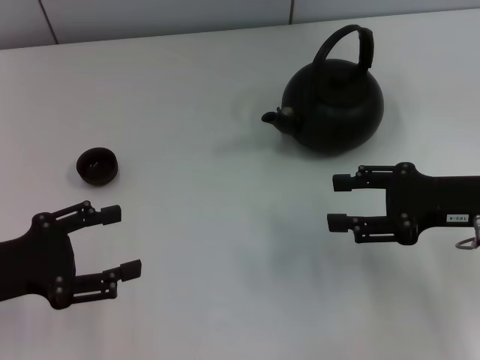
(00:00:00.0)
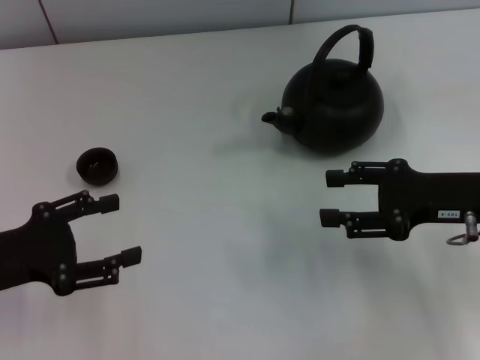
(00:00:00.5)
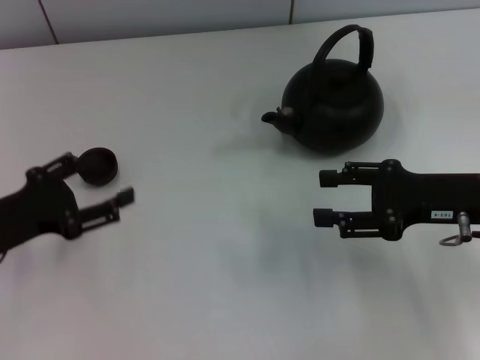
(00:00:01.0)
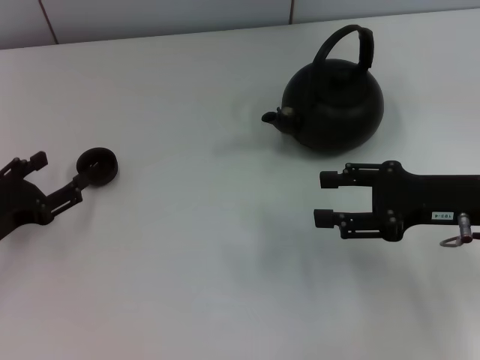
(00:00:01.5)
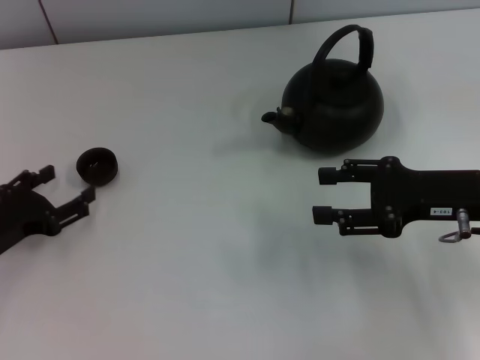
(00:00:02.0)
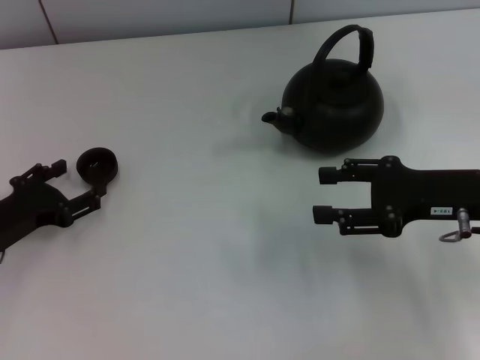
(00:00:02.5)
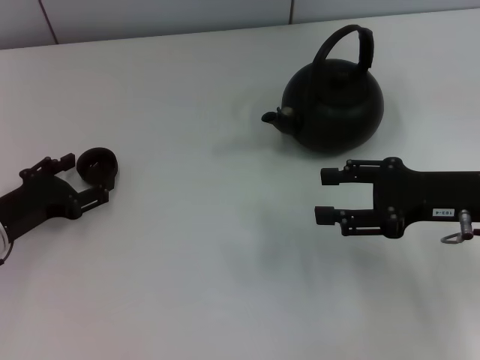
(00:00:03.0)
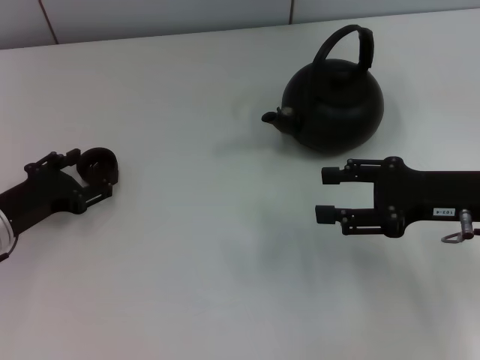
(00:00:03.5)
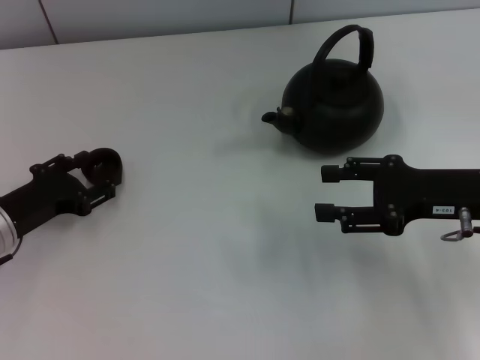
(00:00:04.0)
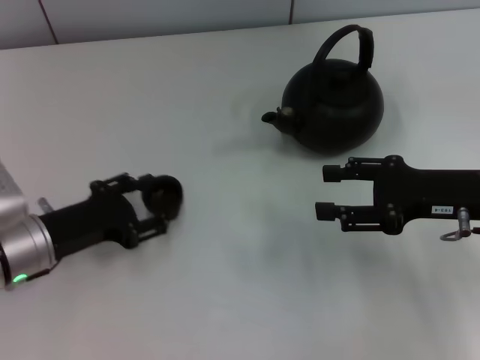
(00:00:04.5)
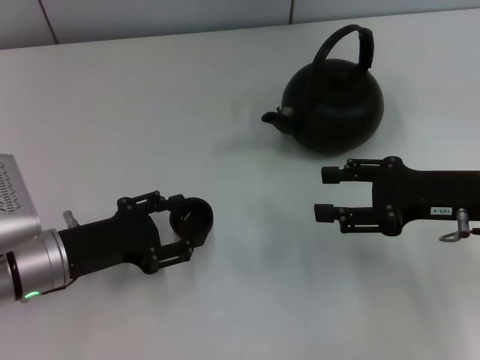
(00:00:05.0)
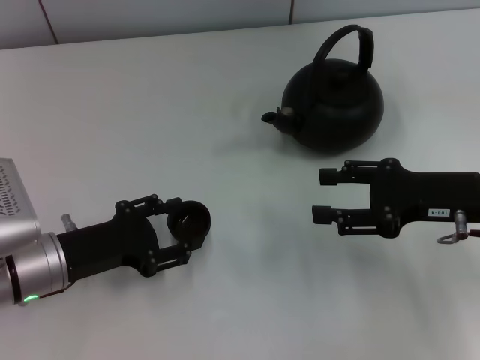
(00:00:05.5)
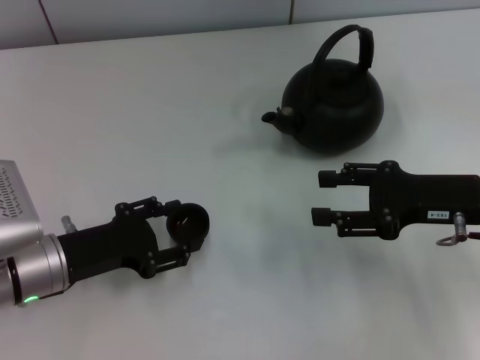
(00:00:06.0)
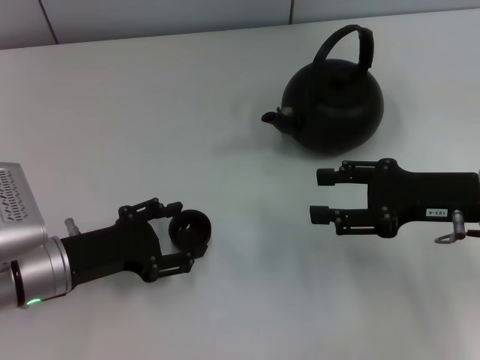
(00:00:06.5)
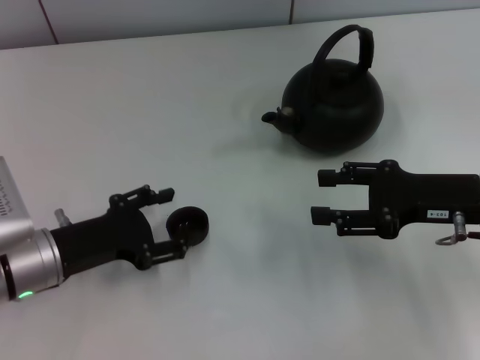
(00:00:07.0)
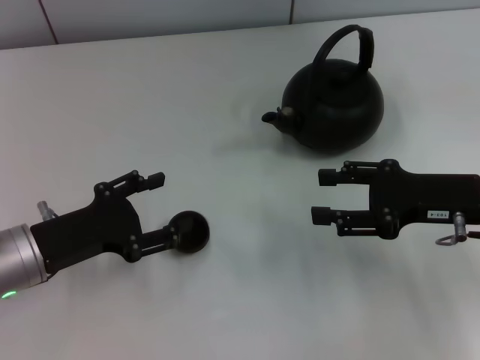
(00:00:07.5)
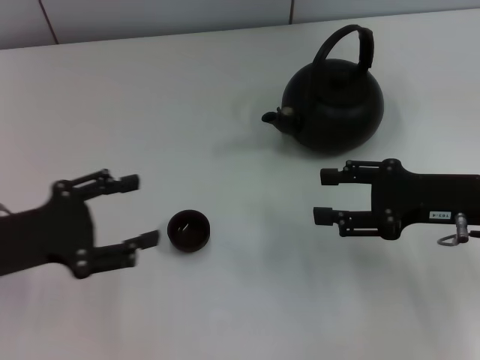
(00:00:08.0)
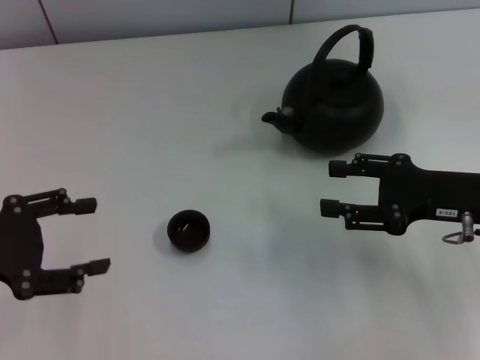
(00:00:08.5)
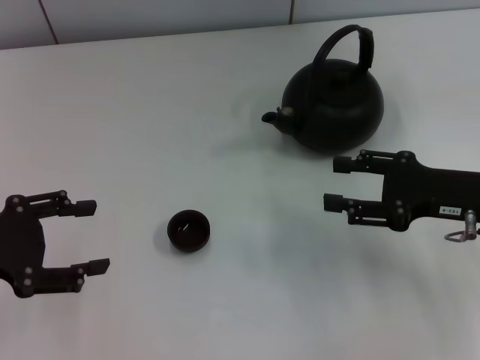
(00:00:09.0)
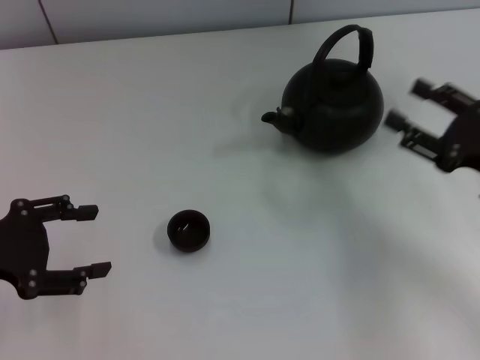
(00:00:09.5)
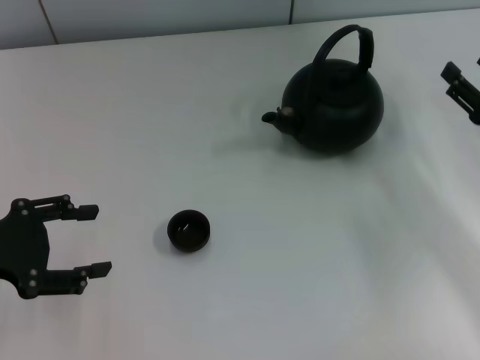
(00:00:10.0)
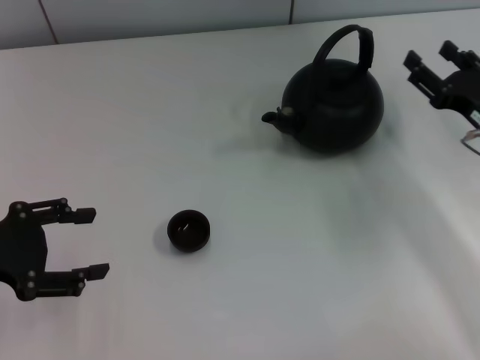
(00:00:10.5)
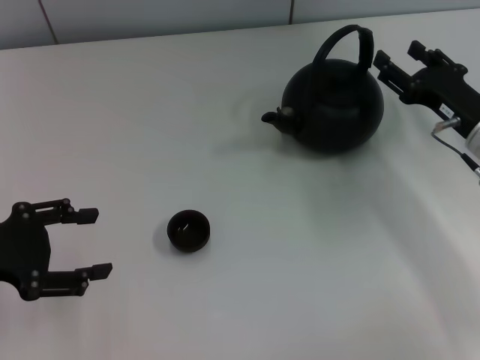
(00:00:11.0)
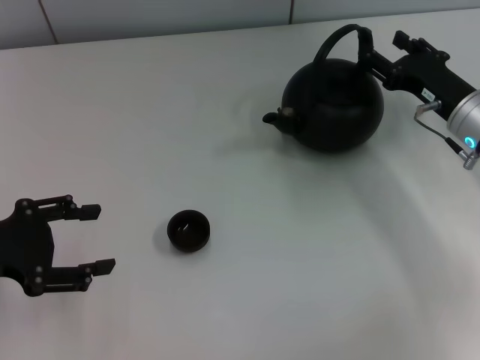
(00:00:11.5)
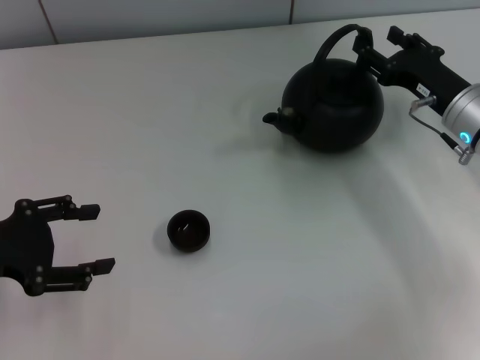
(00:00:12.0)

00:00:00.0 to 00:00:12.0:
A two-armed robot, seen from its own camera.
Task of the whole recording: Grasp the handle of the teapot with one hand and pour tea into the teacup.
Step, 00:00:00.0 to 00:00:04.0: Pick up the teacup with the left gripper.
Step, 00:00:04.5 to 00:00:07.5: Place the teacup in the center of view with the left gripper.
00:00:00.0 to 00:00:02.0: The left gripper travels downward by roughly 5 cm, and closes up.
00:00:02.0 to 00:00:04.0: The left gripper closes up.
00:00:04.0 to 00:00:06.0: The left gripper moves roughly 5 cm, and opens its fingers.
00:00:06.0 to 00:00:08.0: The left gripper is displaced upward and to the left by some 10 cm.
00:00:08.0 to 00:00:10.0: The right gripper heads to the right, covering roughly 5 cm.
00:00:10.0 to 00:00:12.0: The right gripper heads forward and to the left, covering about 10 cm.

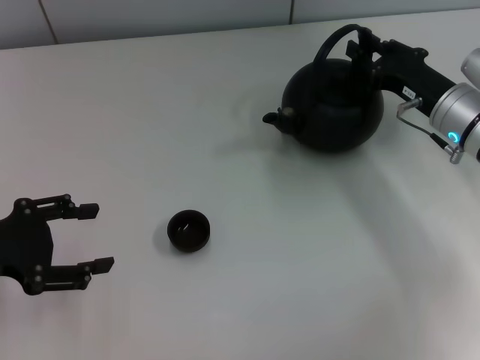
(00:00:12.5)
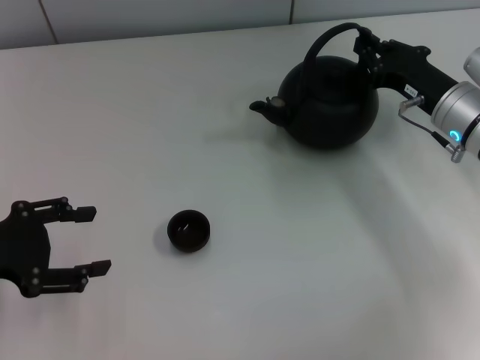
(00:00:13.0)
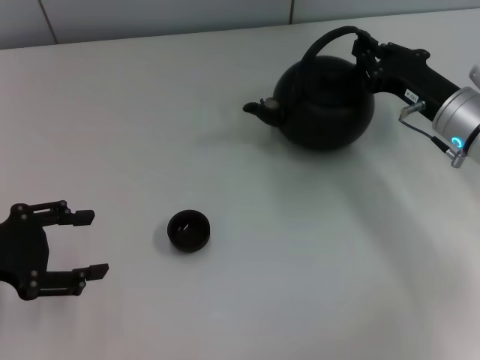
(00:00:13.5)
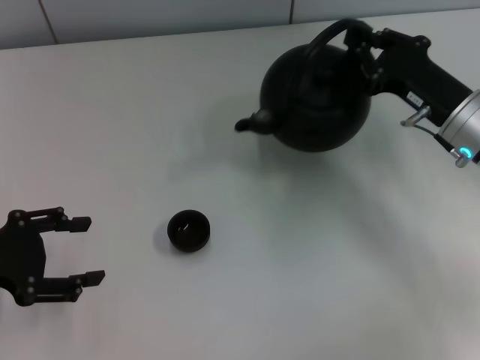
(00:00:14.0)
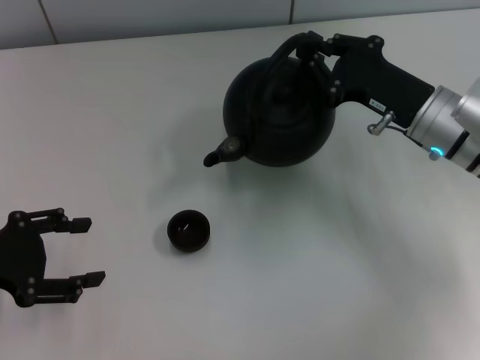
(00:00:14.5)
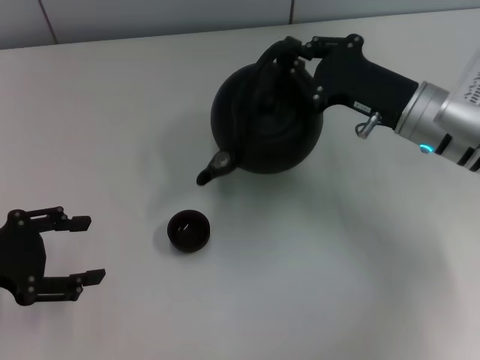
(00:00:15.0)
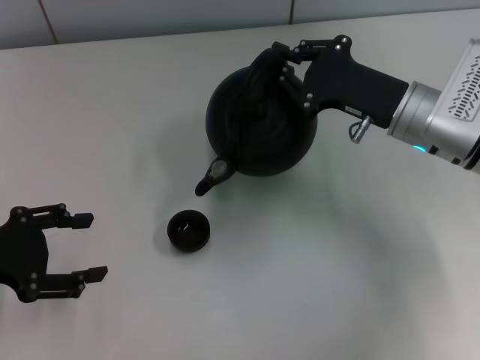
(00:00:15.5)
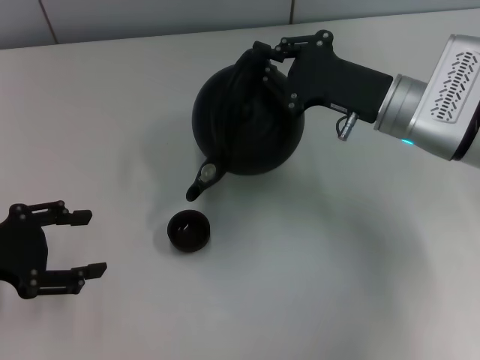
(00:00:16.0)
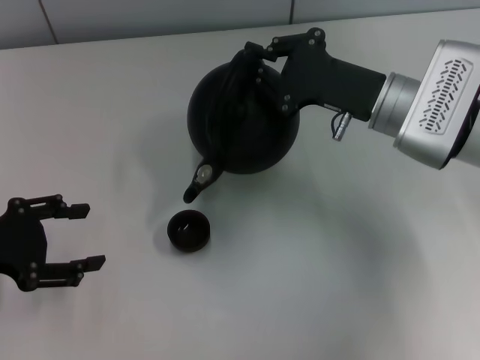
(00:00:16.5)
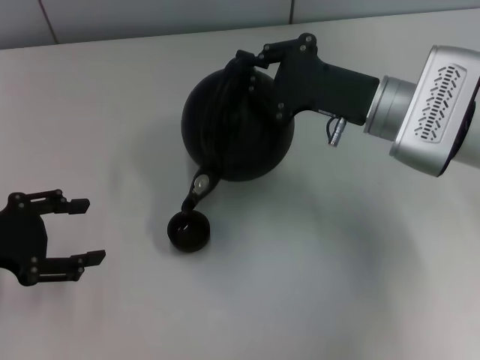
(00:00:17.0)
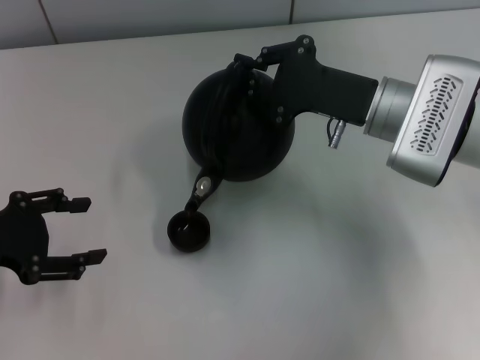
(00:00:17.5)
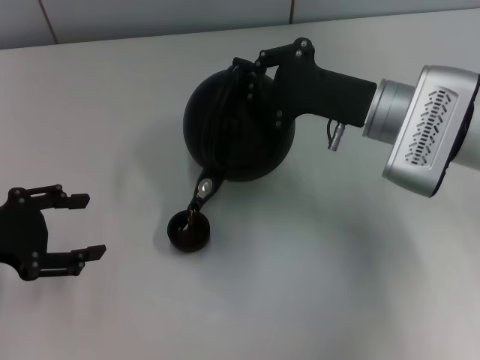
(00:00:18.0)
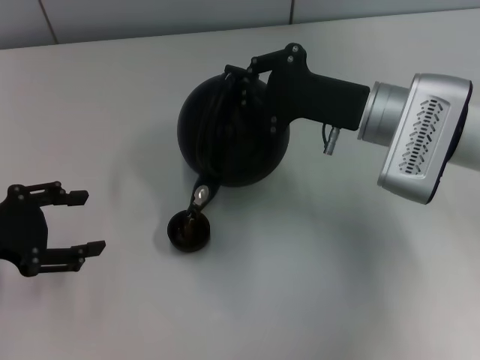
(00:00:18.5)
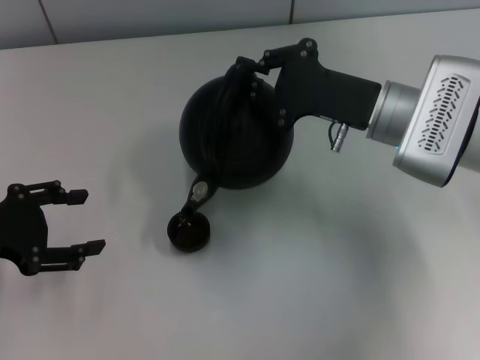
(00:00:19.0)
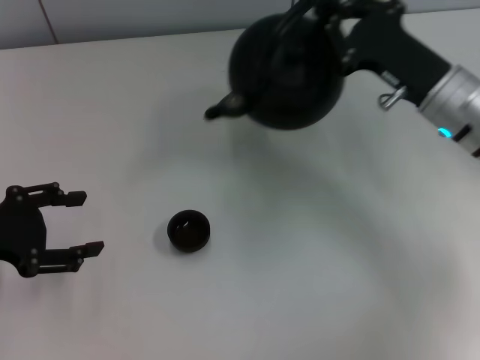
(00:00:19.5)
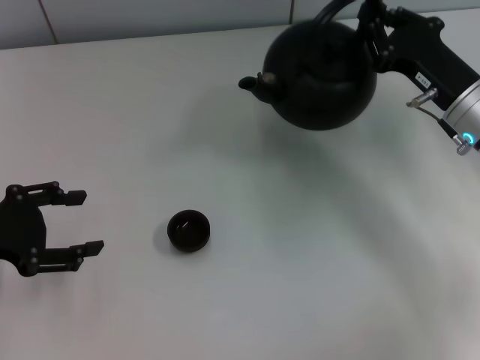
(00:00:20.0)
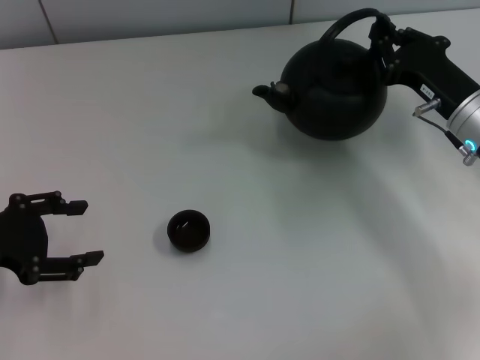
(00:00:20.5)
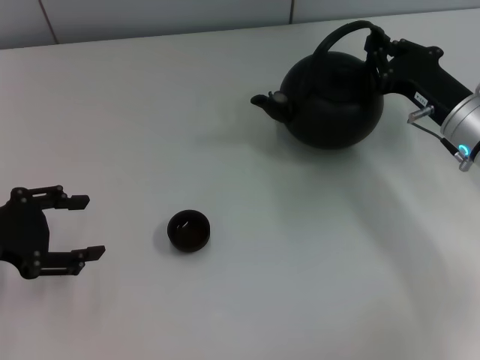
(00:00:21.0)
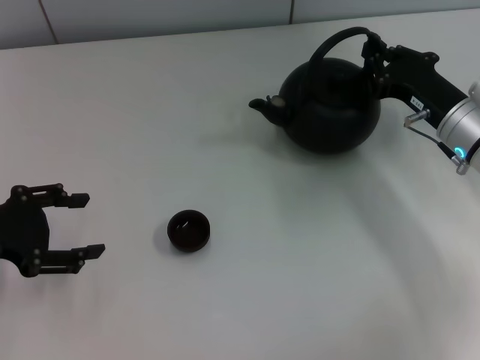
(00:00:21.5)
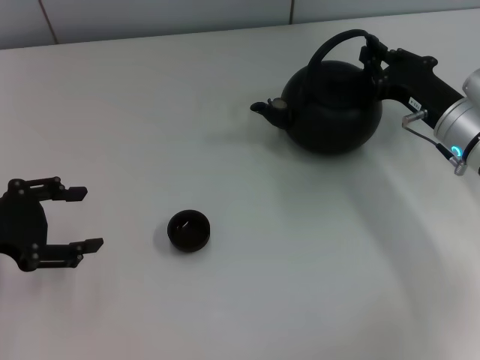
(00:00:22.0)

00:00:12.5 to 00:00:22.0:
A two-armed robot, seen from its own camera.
Task of the whole recording: Grasp the handle of the teapot with one hand and pour tea into the teacup.
00:00:12.5 to 00:00:14.5: The right gripper closes.
00:00:16.5 to 00:00:18.0: There are only small adjustments of the grippers.
00:00:18.0 to 00:00:20.0: The right gripper shifts roughly 10 cm to the right.
00:00:20.0 to 00:00:22.0: The grippers make only small movements.

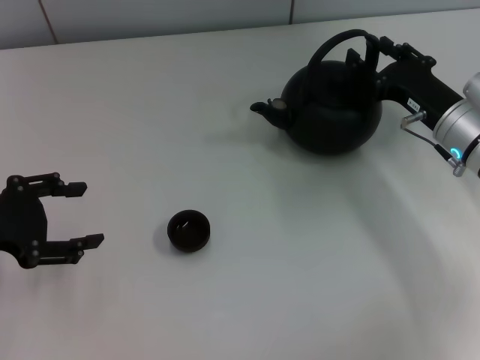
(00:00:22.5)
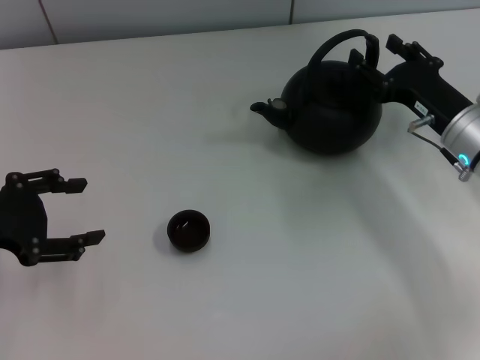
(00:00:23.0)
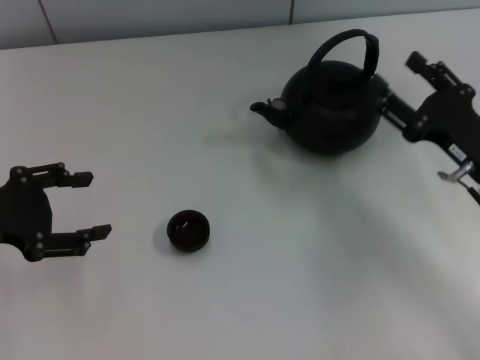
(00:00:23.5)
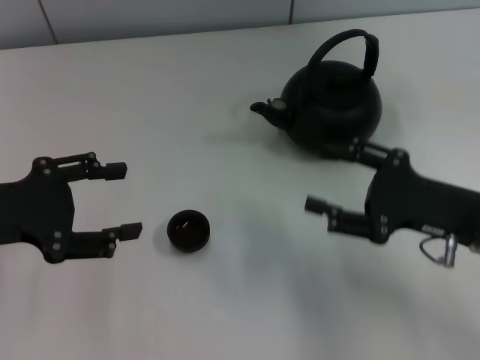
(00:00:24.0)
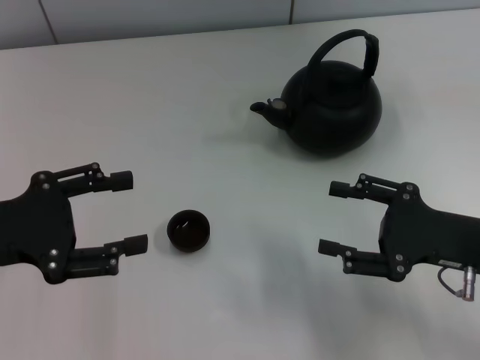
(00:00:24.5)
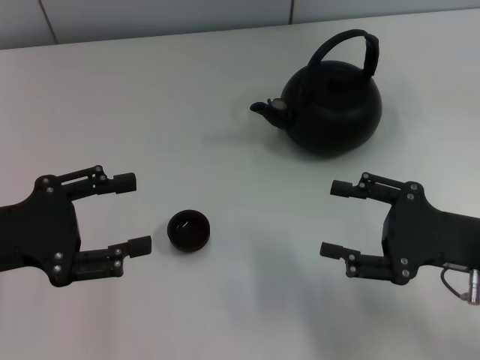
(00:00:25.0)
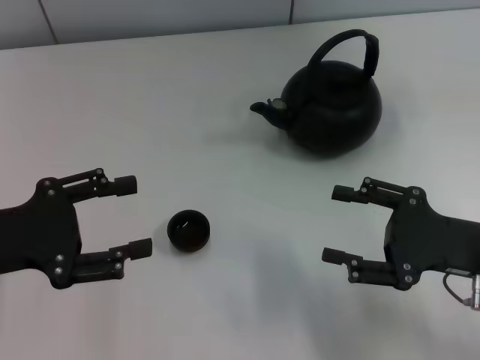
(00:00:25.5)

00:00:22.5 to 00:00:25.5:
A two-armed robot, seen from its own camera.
Task of the whole recording: Grasp the handle of the teapot with one hand and pour tea into the teacup.
00:00:22.5 to 00:00:24.0: The right gripper travels backward by roughly 10 cm, and opens.
00:00:24.0 to 00:00:25.5: The grippers stay close to where they were, moving slightly.
